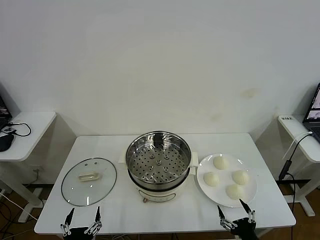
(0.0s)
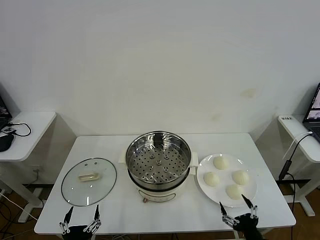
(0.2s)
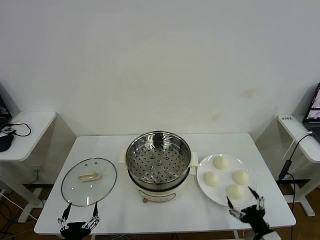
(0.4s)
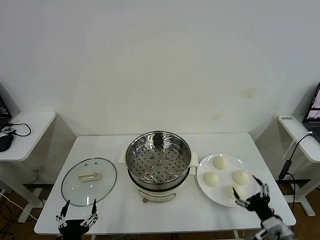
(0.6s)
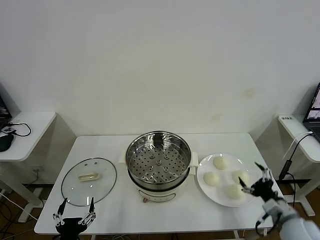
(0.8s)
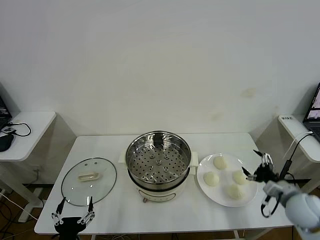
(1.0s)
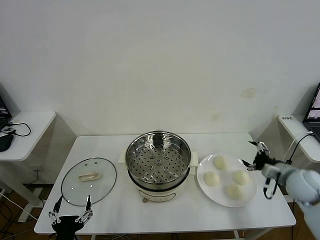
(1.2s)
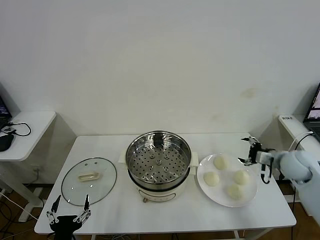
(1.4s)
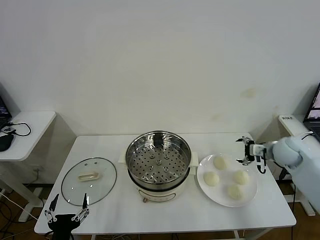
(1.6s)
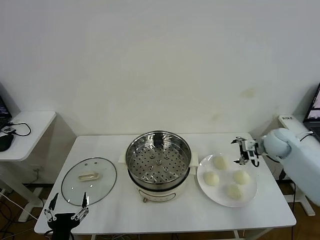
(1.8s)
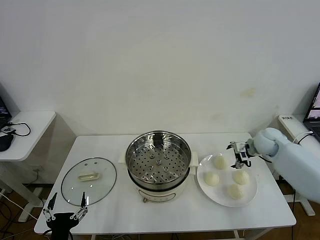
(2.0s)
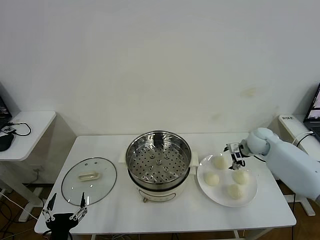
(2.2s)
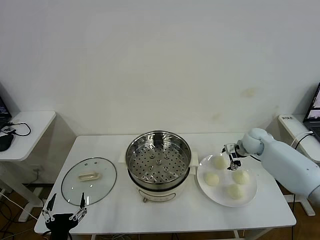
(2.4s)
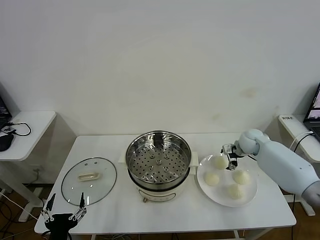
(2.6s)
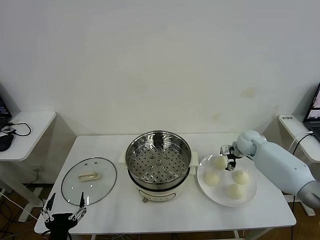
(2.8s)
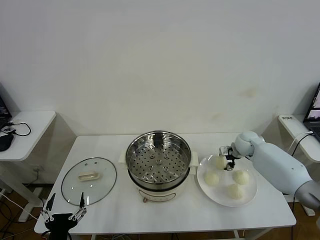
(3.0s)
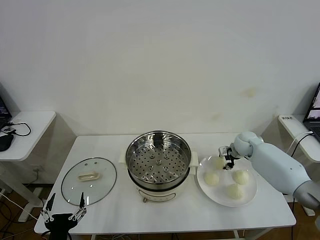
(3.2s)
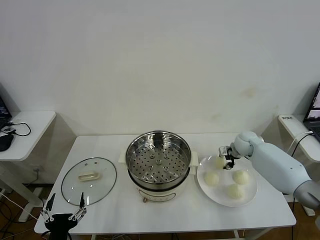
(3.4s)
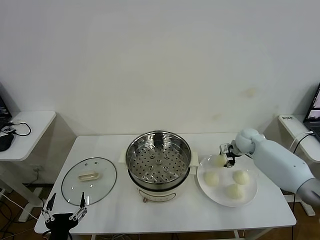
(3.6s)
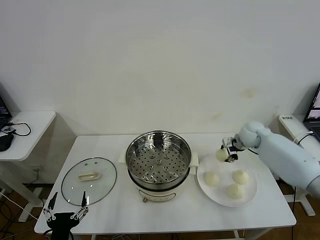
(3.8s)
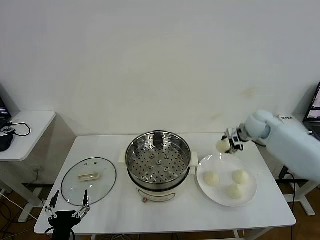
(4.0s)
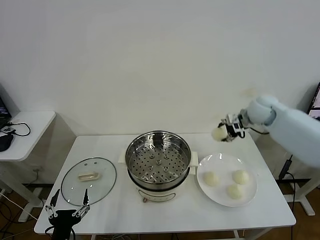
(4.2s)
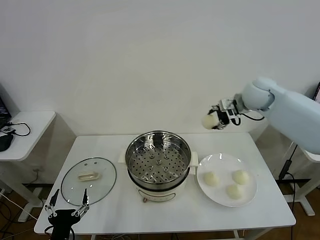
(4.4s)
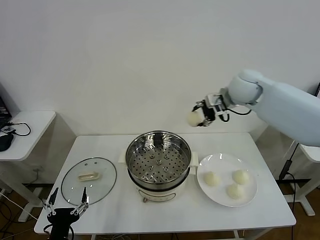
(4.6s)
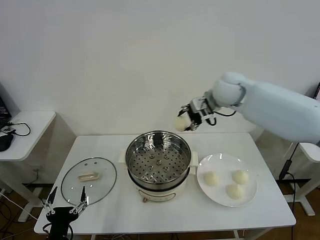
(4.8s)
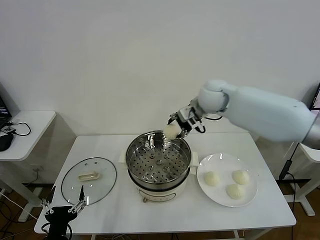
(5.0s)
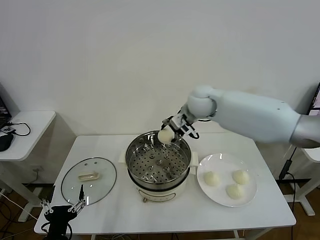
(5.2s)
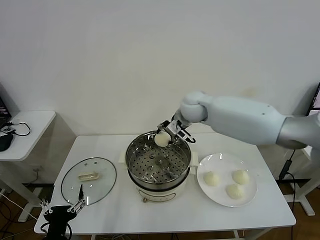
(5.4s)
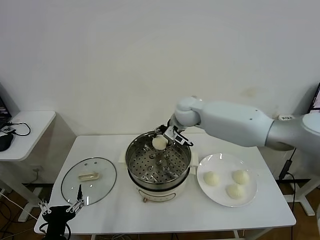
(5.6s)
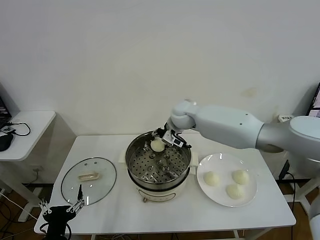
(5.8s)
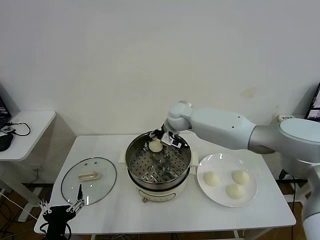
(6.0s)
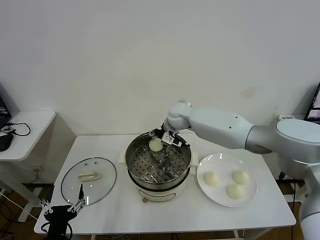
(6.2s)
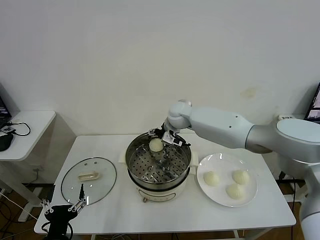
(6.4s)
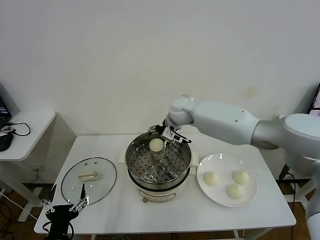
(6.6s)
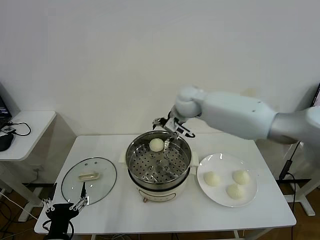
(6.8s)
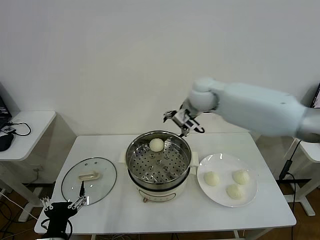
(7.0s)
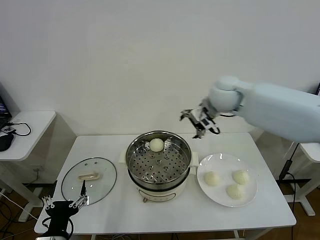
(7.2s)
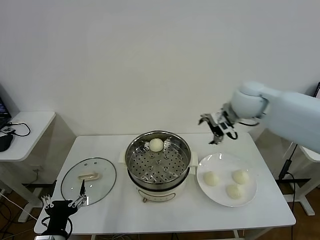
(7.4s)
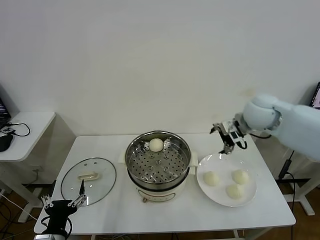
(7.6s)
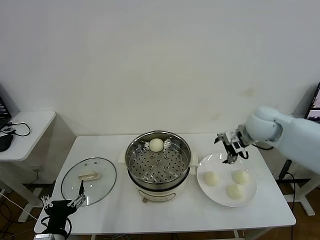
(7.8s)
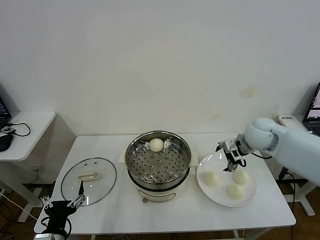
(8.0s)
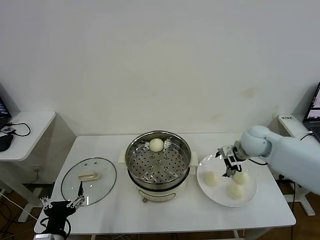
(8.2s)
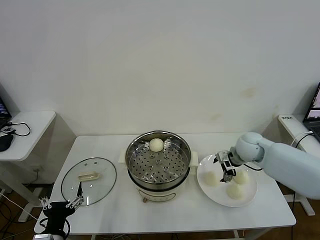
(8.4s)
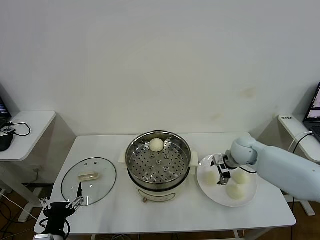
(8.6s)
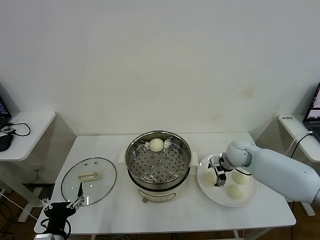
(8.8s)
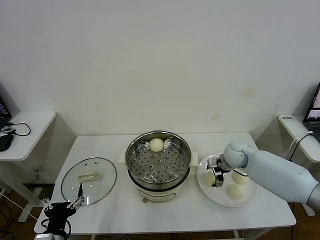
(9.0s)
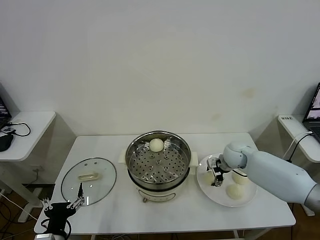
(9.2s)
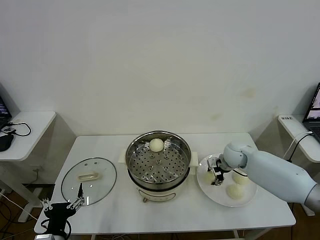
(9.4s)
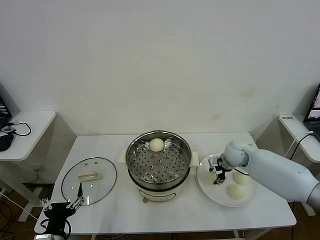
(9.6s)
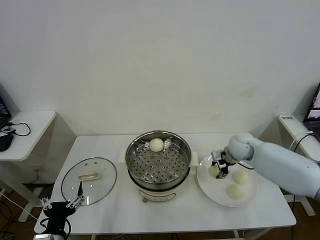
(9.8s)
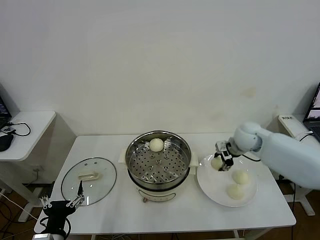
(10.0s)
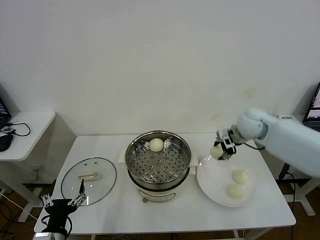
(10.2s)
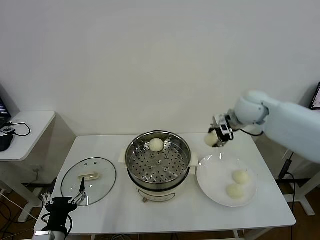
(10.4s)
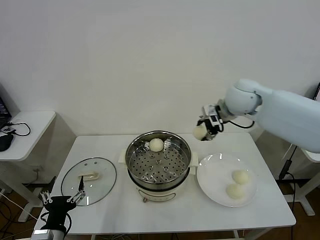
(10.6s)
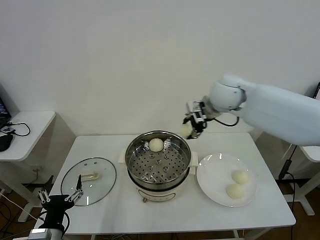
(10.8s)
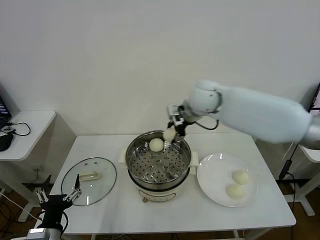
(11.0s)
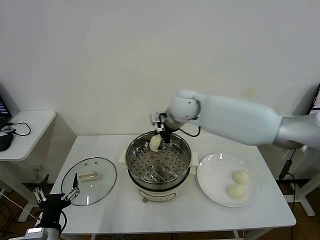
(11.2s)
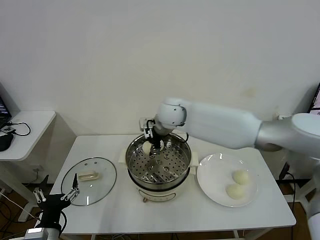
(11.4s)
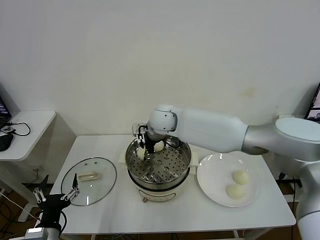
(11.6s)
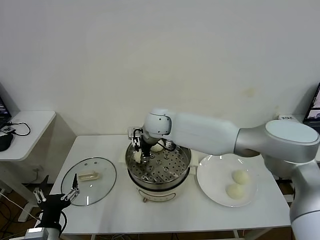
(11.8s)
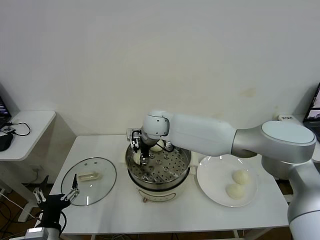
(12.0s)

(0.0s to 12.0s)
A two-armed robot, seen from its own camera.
Task of the whole recording: take steamed baozi put them in steamer then cover it.
Step, 0.0s - 3.2s: Grasp the baozi in the plate with right gripper.
Step, 3.4s - 6.4s: Place the baozi on the steamer with right gripper.
Step, 6.6s - 9.4s: Grasp the baozi in the plate with right gripper.
1.6s - 3.0s: The right gripper is displaced downward, forward and to the left by some 15 cm, and closes.
3.0s - 4.4s: The right gripper goes about 25 cm upward.
4.4s - 6.0s: The right gripper moves to the left and downward, approximately 25 cm.
6.0s - 7.6s: The right gripper travels to the right and backward by some 25 cm, and opens its fingers.
7.6s - 9.0s: The right gripper shifts roughly 20 cm downward.
9.0s - 10.4s: The right gripper moves upward, approximately 25 cm, and closes up.
10.4s - 12.0s: The right gripper is displaced to the left by approximately 25 cm, and opens its fingers.

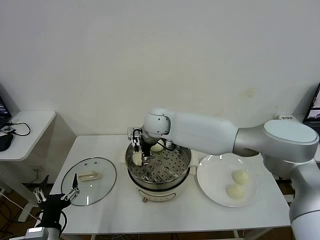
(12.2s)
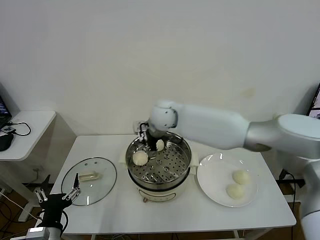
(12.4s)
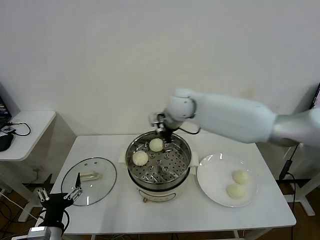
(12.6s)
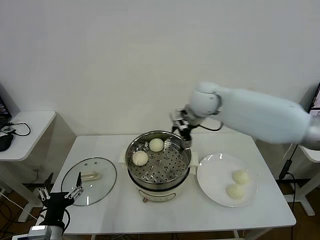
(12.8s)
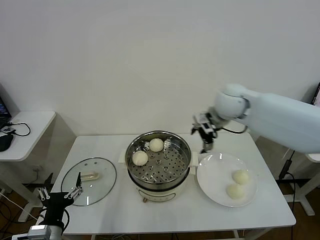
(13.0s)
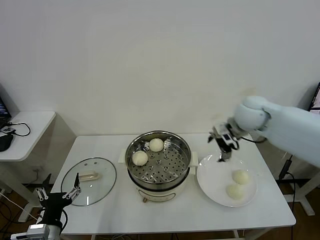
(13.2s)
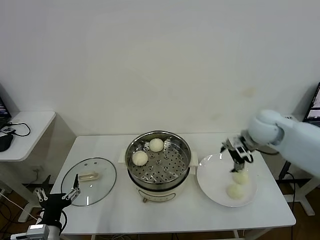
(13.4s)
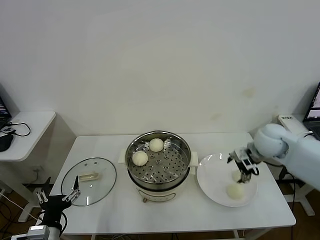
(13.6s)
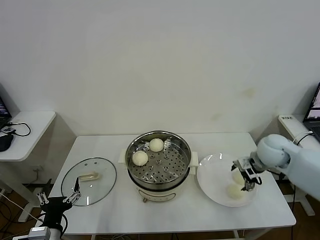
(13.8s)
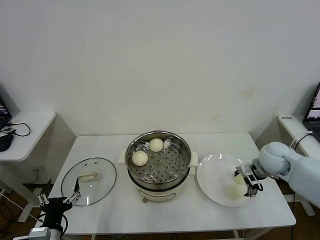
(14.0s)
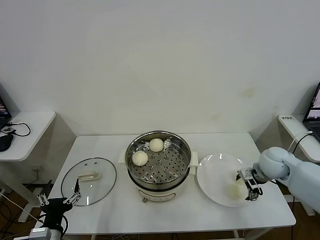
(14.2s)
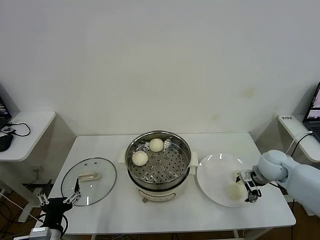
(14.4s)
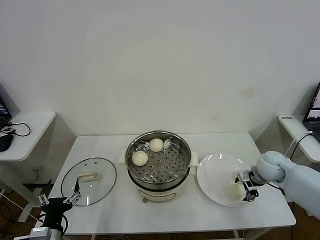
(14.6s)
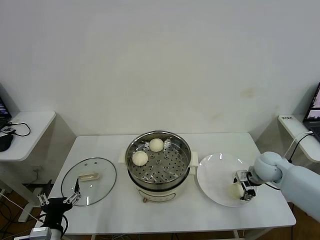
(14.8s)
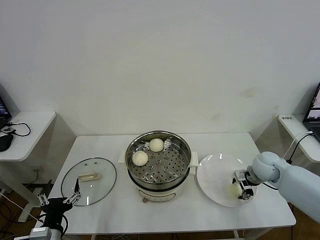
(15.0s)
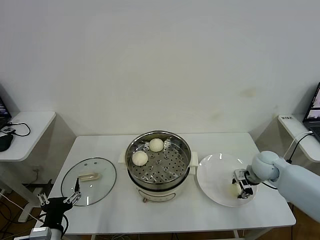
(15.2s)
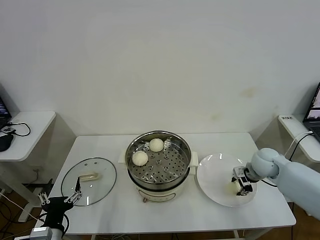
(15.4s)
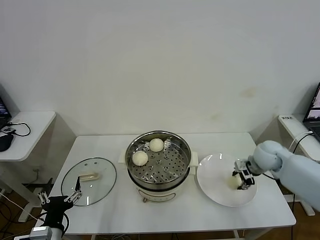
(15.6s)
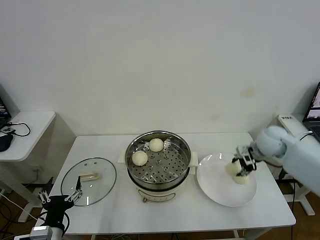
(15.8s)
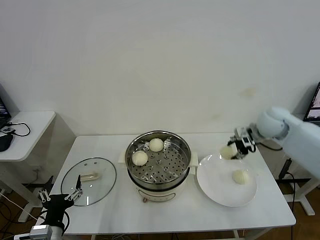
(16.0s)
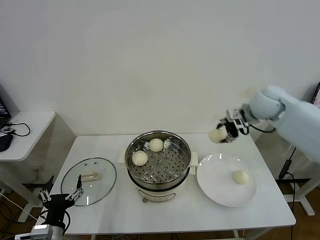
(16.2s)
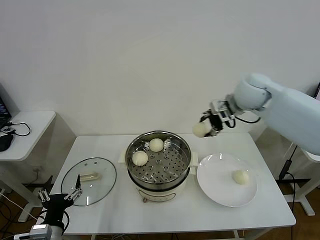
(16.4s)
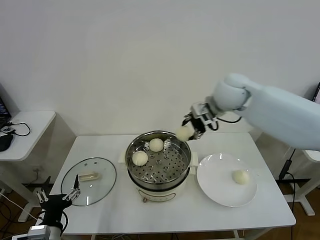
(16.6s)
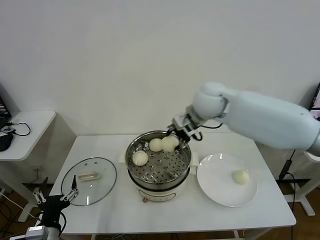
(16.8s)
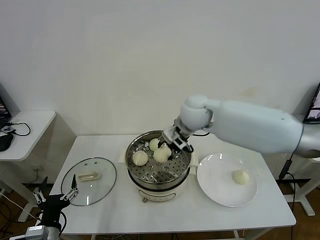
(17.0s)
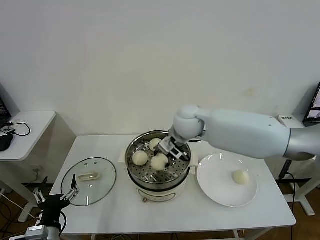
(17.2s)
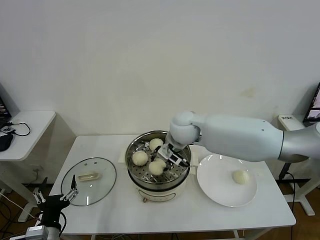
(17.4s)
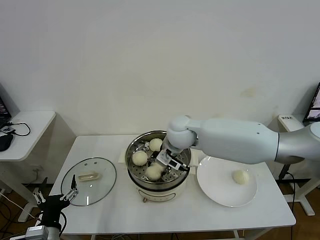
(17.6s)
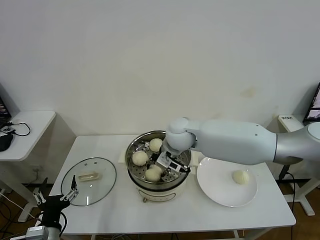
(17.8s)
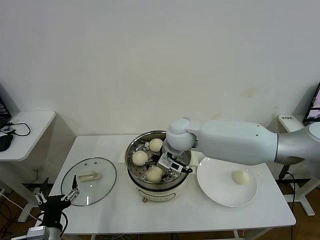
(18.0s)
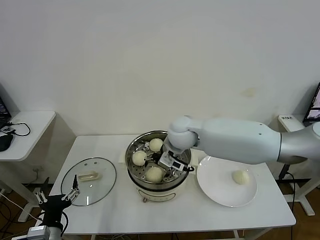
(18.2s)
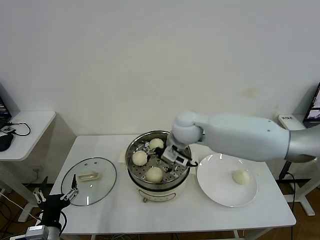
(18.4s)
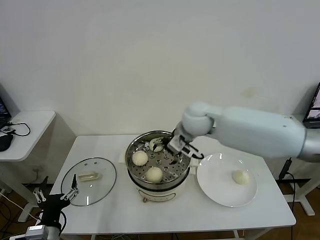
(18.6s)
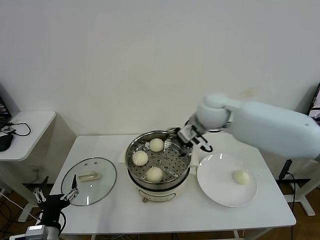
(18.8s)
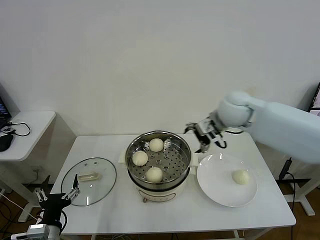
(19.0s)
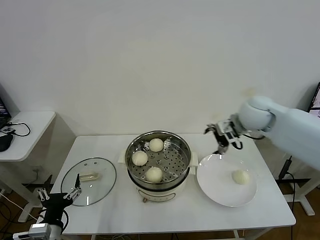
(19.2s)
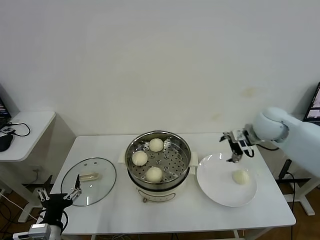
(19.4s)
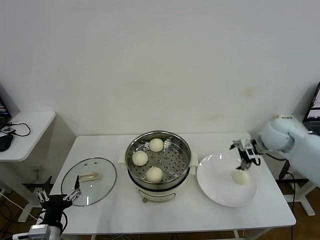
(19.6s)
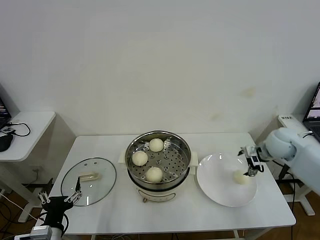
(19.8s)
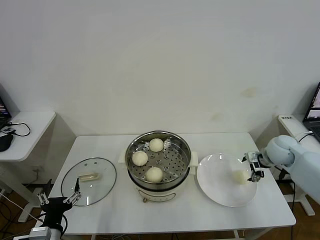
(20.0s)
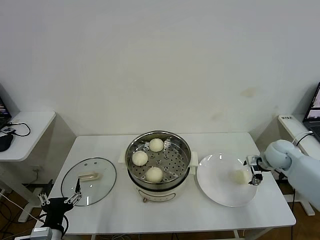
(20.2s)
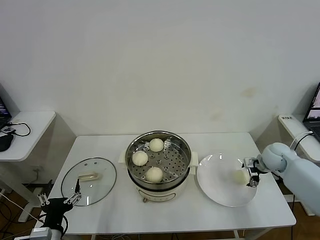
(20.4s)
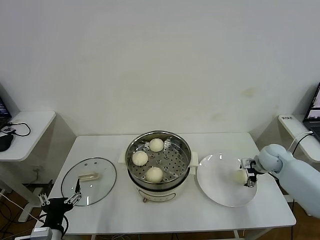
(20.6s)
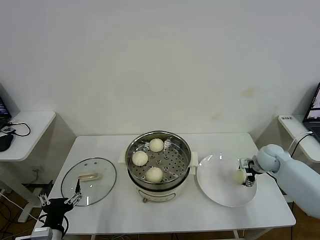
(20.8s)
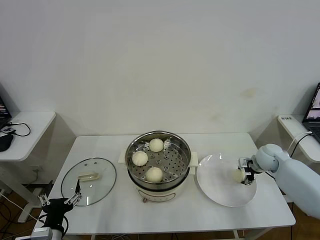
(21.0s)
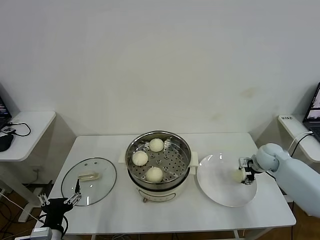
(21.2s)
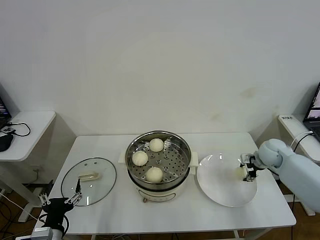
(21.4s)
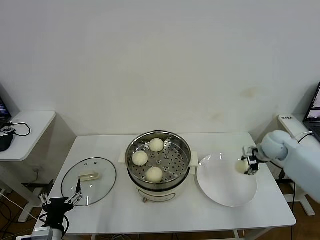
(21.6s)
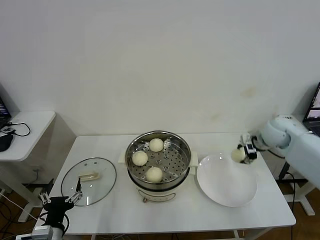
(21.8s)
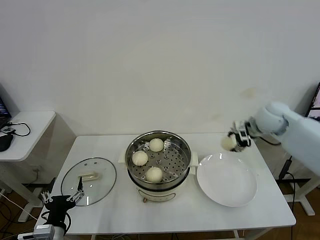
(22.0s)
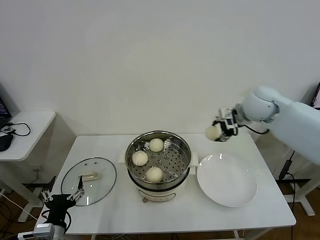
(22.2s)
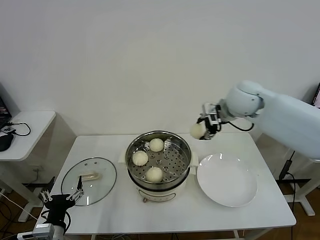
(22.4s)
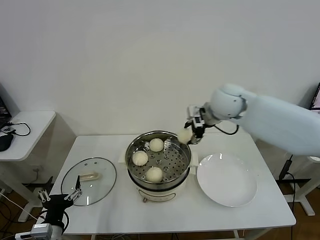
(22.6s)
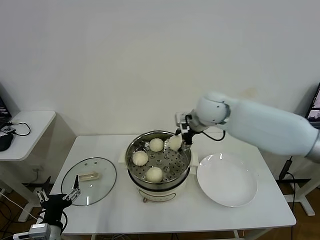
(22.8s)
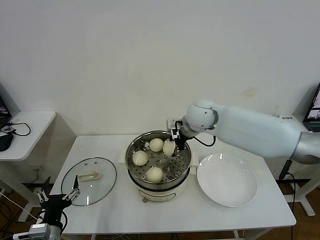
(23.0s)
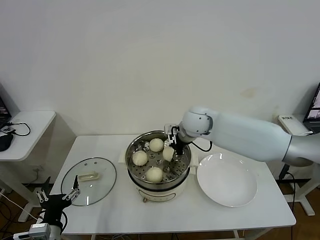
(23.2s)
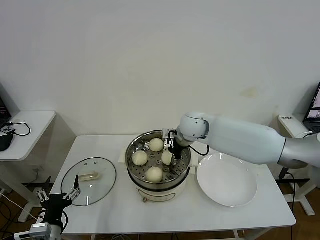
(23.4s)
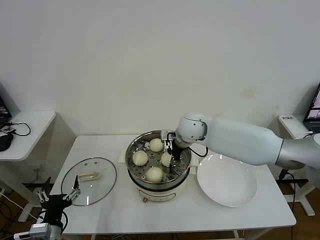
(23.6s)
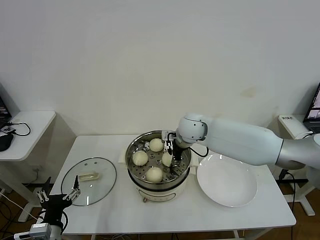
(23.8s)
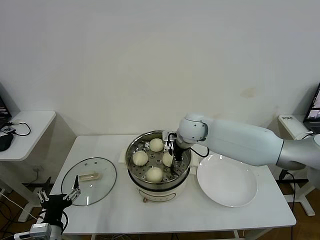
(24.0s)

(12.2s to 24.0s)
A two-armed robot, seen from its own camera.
Task of the whole recording: take steamed baozi put them in steamer then cover it.
Step, 12.4s - 15.2s: Grasp the baozi in the plate with right gripper.
Step, 15.4s - 18.2s: Place the baozi on the steamer with right gripper.
Step, 18.4s - 21.2s: Grasp the baozi in the plate with right gripper.
12.2s - 13.6s: The right gripper is displaced to the right by roughly 35 cm.
13.6s - 15.2s: The right gripper heads downward, covering about 10 cm, and closes.
15.2s - 16.6s: The right gripper travels upward and to the left by some 30 cm.
16.6s - 18.2s: The right gripper goes about 15 cm to the left and downward, and opens its fingers.
18.2s - 19.6s: The right gripper shifts some 30 cm to the right.
19.6s - 21.0s: The right gripper travels downward by about 15 cm, and closes.
21.0s - 22.6s: The right gripper travels upward and to the left by about 35 cm.
22.6s - 24.0s: The right gripper heads downward and to the left, covering roughly 15 cm.
